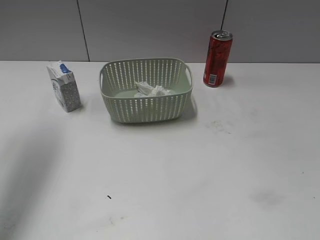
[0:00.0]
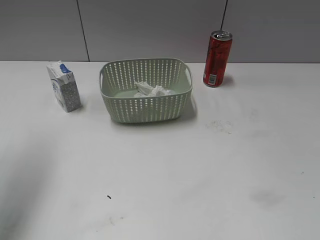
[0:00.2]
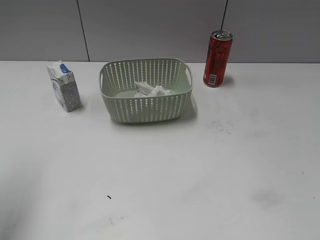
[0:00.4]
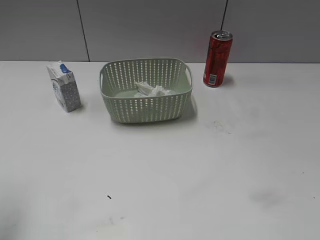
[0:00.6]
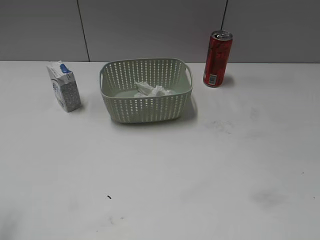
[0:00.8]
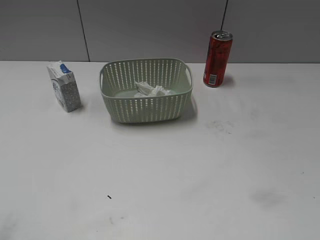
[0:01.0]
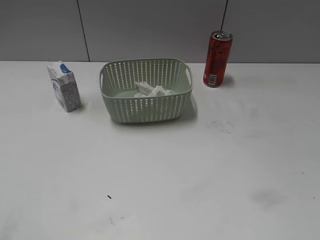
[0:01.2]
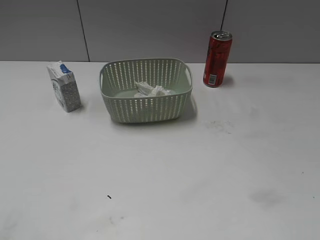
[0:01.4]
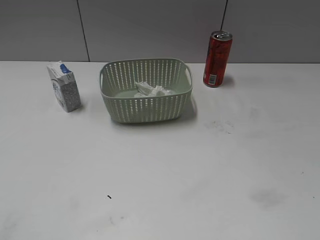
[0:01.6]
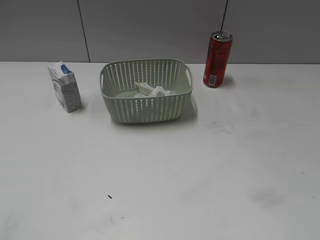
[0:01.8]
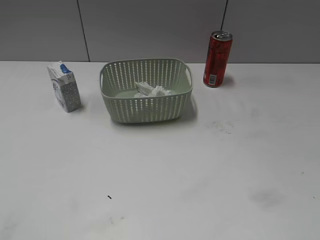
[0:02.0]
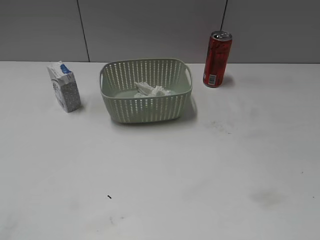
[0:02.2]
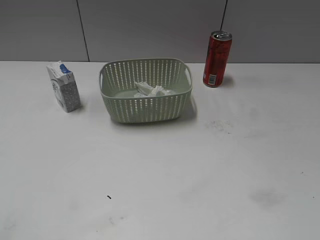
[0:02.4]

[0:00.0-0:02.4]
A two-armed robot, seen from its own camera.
0:00.0 to 0:01.2: The left gripper shifts about 25 cm backward.
